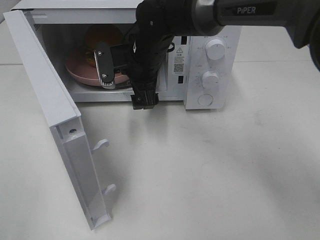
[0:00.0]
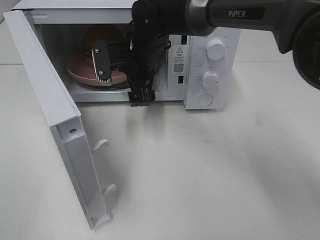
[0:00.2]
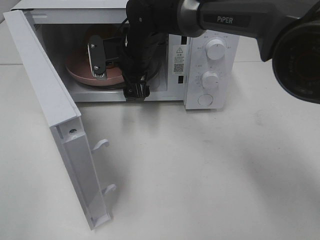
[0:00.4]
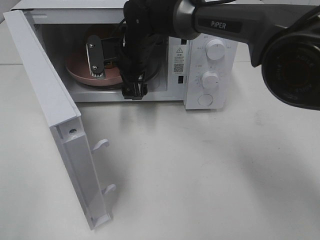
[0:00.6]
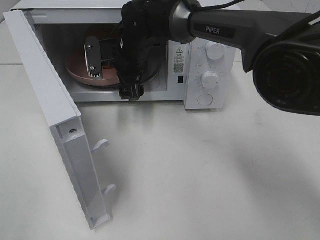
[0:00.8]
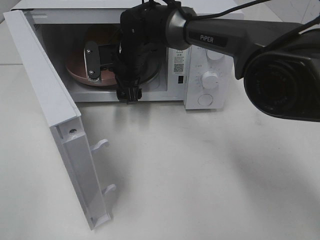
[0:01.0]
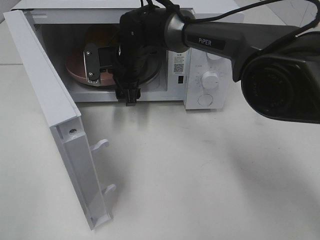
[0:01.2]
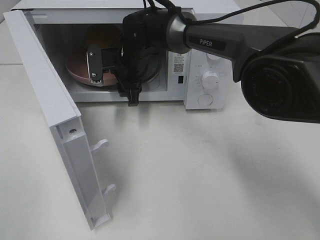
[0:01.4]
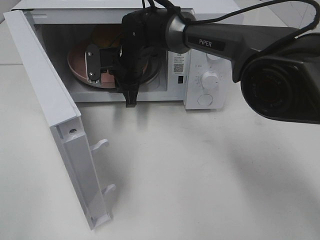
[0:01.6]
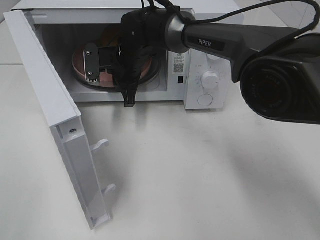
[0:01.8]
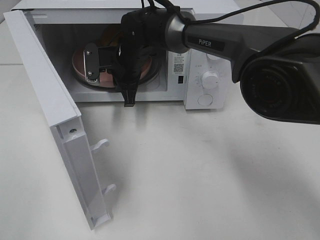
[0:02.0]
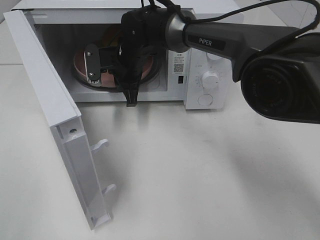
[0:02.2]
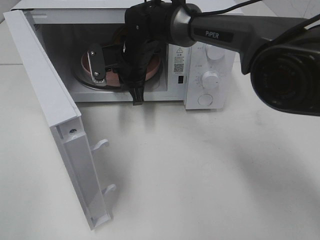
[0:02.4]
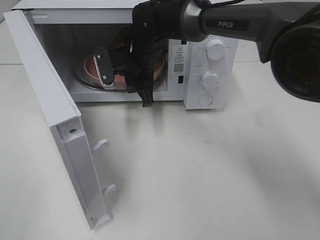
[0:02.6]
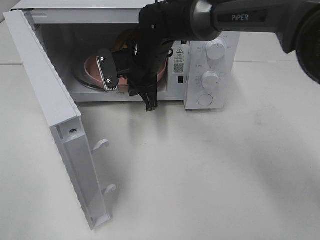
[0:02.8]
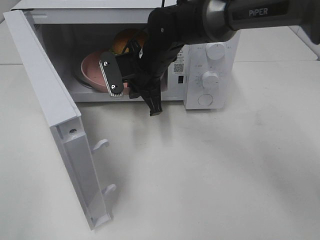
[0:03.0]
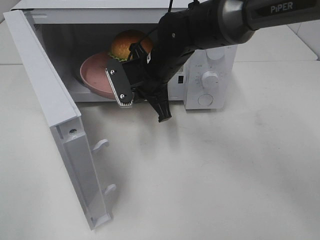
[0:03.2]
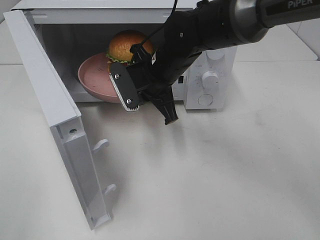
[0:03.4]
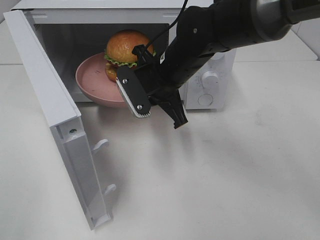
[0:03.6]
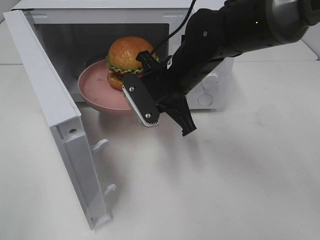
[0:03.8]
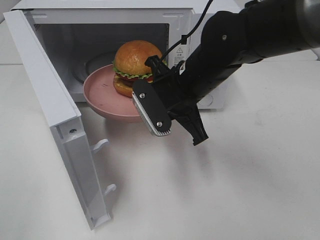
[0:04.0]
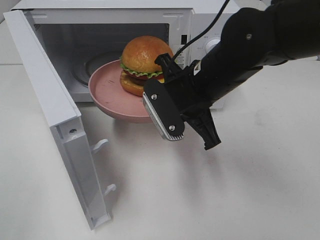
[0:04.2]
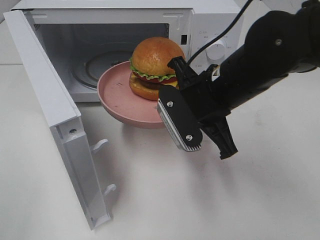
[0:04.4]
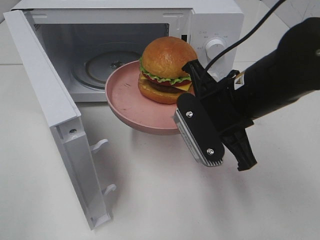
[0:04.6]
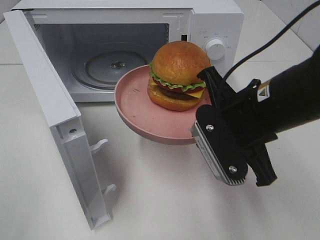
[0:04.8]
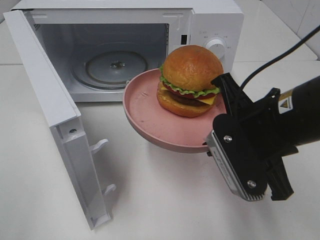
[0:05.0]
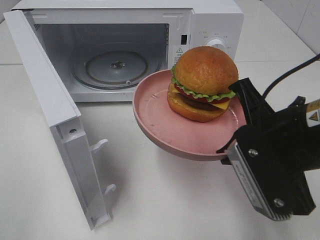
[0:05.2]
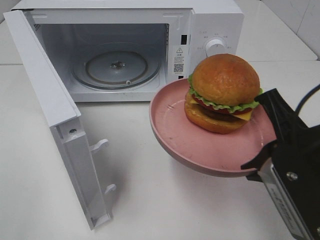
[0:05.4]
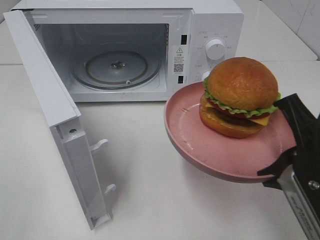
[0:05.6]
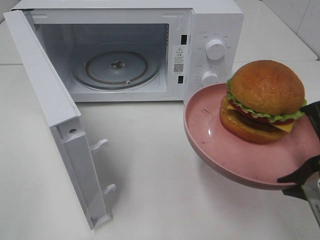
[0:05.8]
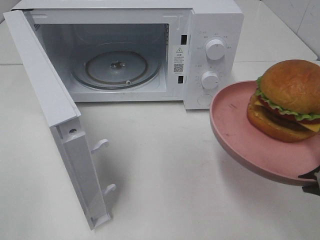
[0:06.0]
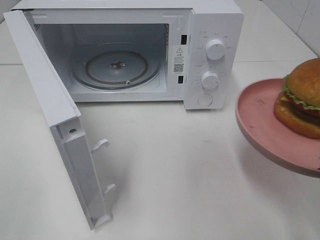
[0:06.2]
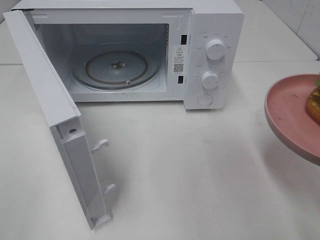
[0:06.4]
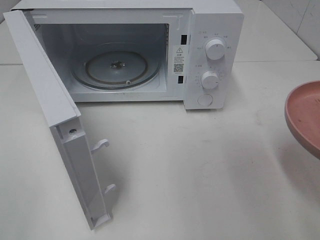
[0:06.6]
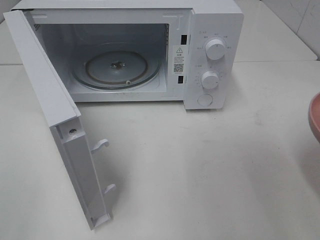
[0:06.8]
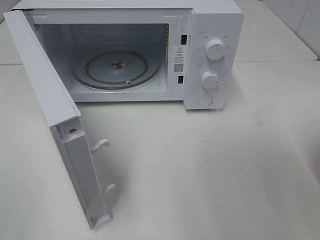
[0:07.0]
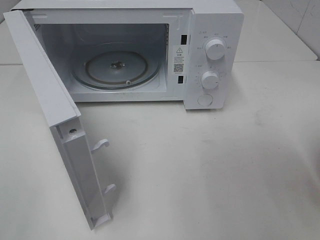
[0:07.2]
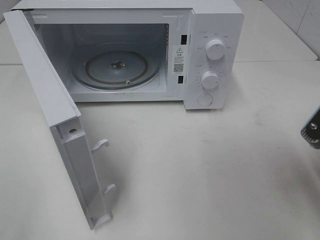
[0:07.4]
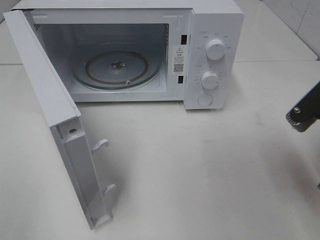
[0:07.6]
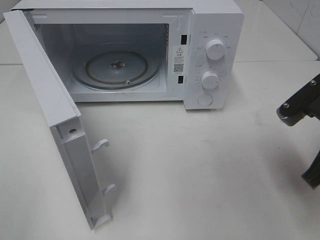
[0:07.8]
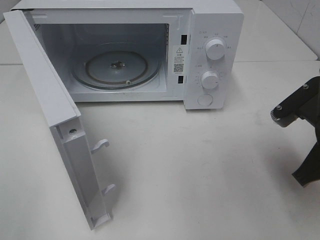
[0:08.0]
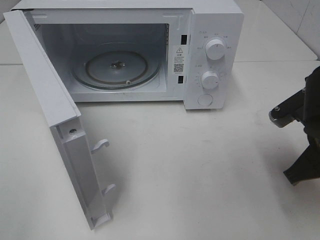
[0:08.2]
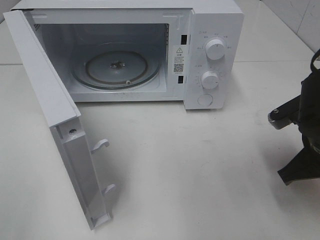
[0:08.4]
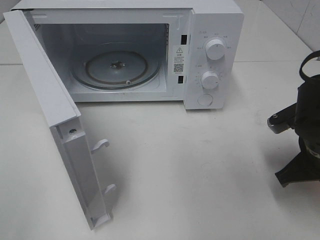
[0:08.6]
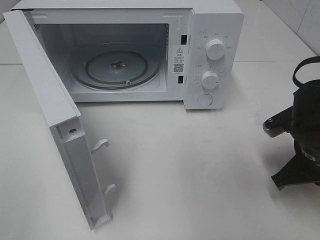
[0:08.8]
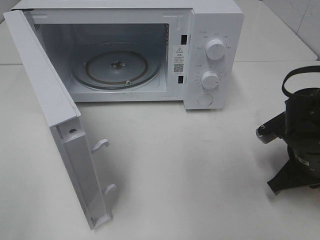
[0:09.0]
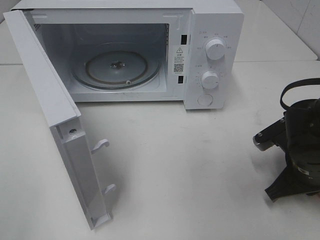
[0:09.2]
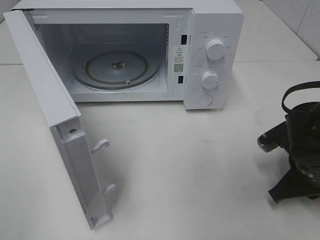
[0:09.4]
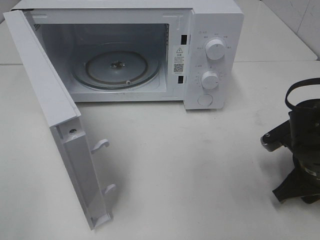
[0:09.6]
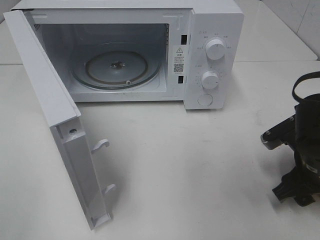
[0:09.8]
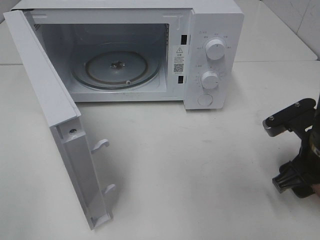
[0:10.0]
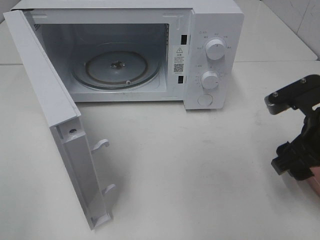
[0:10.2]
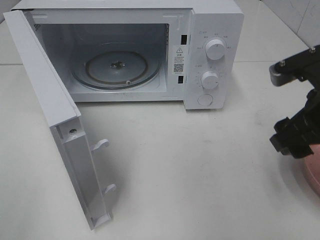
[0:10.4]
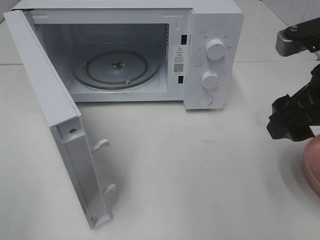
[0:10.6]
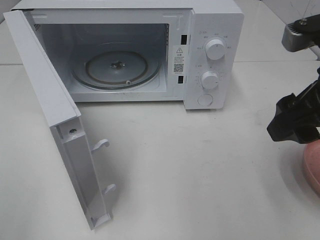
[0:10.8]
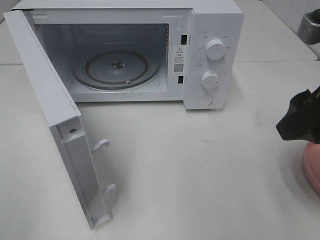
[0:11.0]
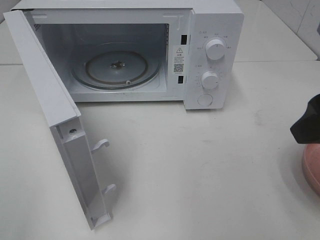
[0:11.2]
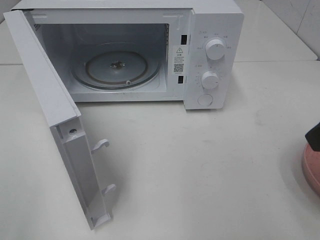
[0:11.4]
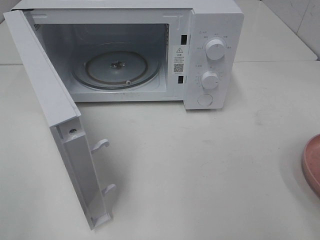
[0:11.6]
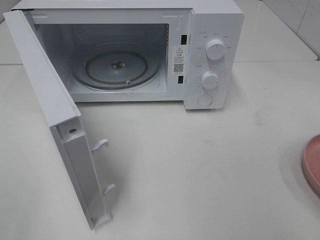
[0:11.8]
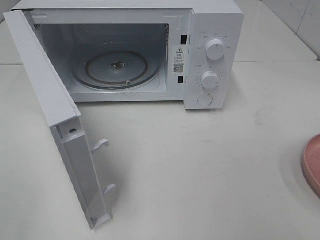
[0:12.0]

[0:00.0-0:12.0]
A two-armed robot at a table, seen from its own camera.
Task of the whole recording: Heat the burger.
Step, 0:00.0 to 0:02.2: Right hand: grab the plate with the hamburger.
Step, 0:02.4 to 0:09.6: Right hand: place the plate on the table.
0:00.0 to 0:01.6: The right gripper moves some 5 cm, and closes.
0:01.6 to 0:03.0: The right gripper shifts approximately 5 cm backward.
0:03.0 to 0:04.4: The right gripper travels backward and to the right by some 15 cm.
0:04.4 to 0:06.0: The right gripper goes some 20 cm backward and to the right.
0:06.0 to 0:07.6: The right gripper goes some 5 cm forward.
0:07.6 to 0:09.0: The right gripper shifts roughly 10 cm downward and forward.
0:09.0 to 0:10.4: The right gripper goes roughly 15 cm upward, and opens up.
0:10.4 to 0:12.0: The right gripper heads backward, to the right and upward, covering about 20 cm.

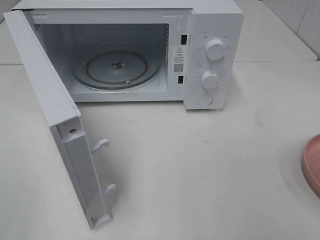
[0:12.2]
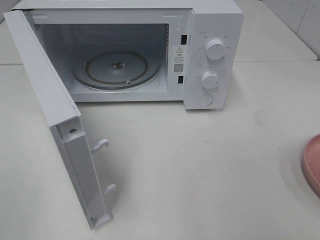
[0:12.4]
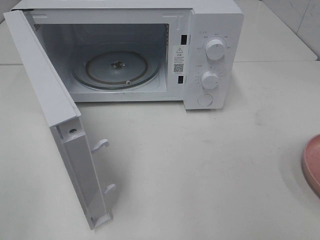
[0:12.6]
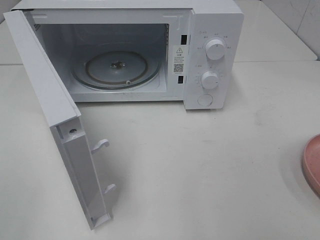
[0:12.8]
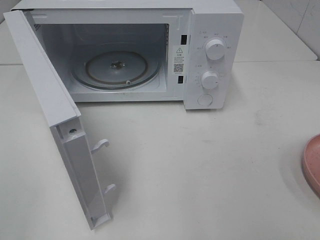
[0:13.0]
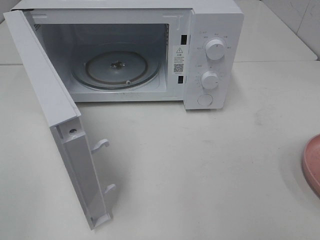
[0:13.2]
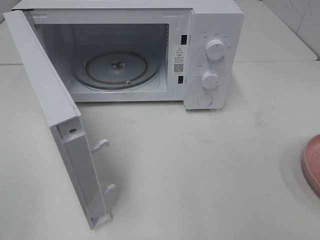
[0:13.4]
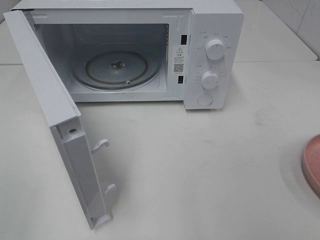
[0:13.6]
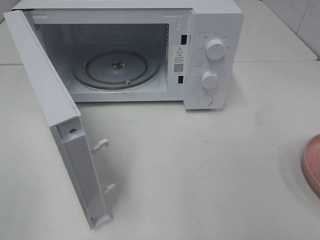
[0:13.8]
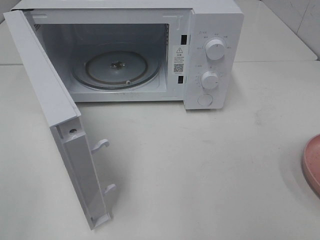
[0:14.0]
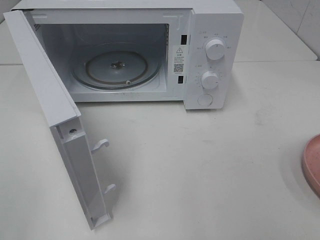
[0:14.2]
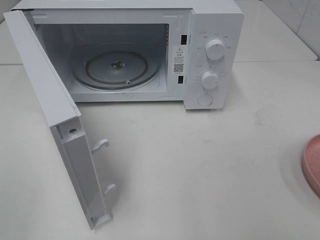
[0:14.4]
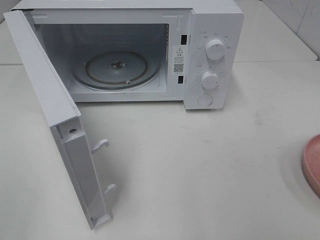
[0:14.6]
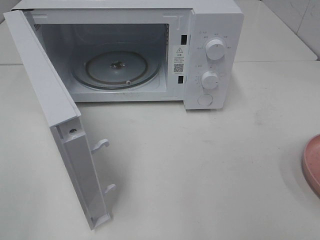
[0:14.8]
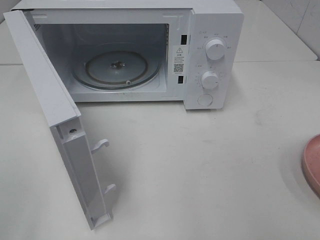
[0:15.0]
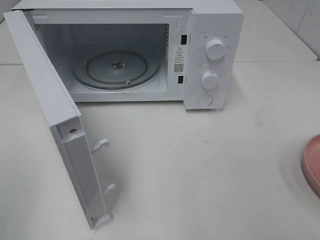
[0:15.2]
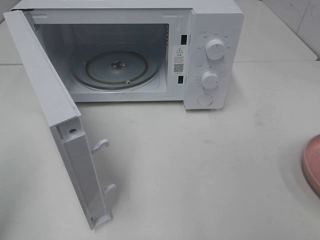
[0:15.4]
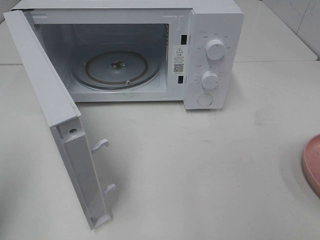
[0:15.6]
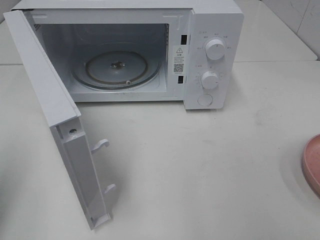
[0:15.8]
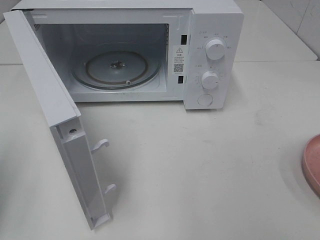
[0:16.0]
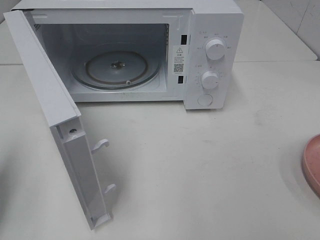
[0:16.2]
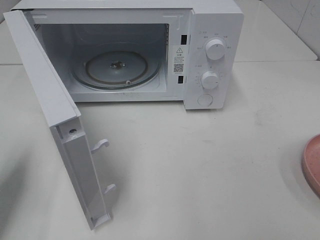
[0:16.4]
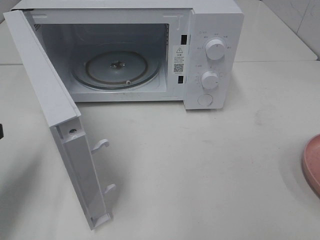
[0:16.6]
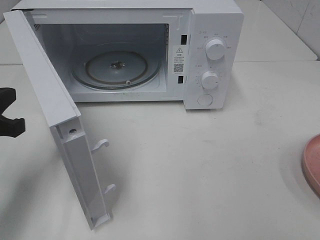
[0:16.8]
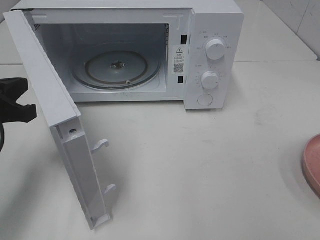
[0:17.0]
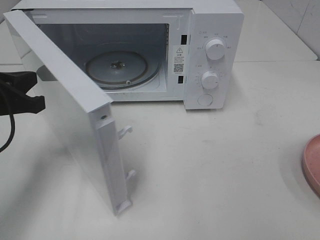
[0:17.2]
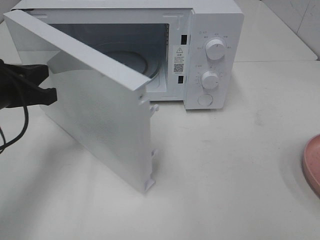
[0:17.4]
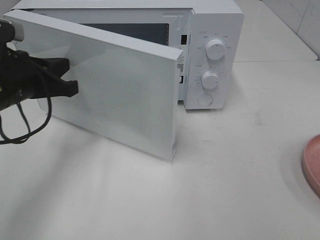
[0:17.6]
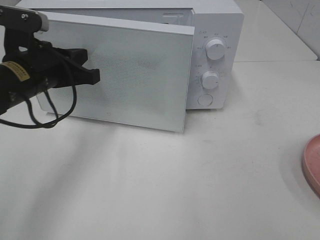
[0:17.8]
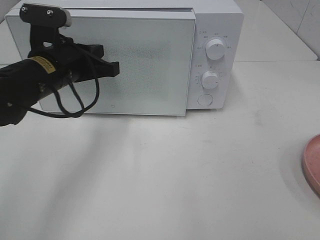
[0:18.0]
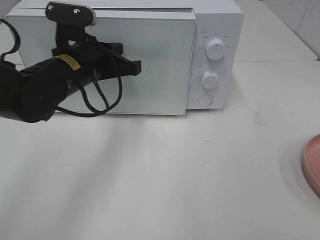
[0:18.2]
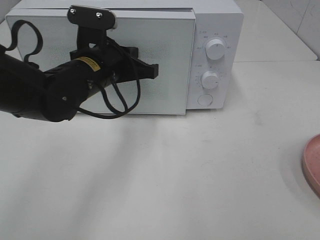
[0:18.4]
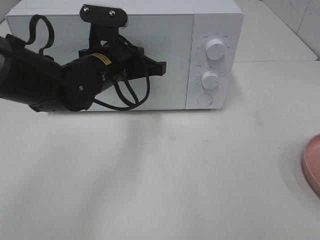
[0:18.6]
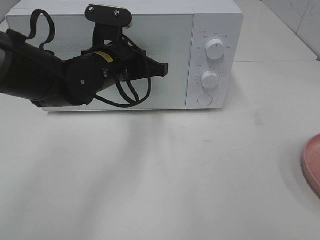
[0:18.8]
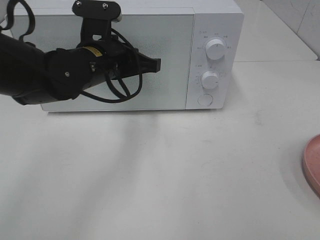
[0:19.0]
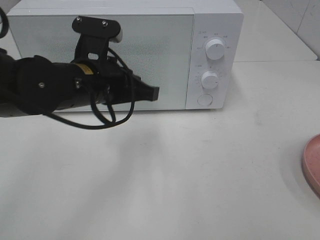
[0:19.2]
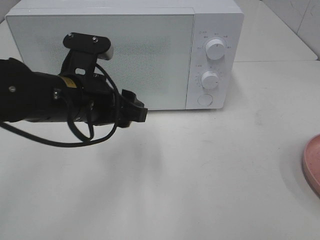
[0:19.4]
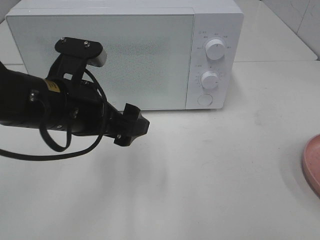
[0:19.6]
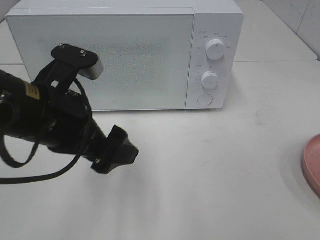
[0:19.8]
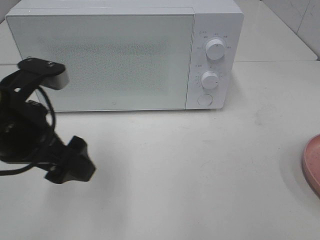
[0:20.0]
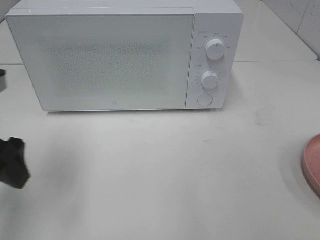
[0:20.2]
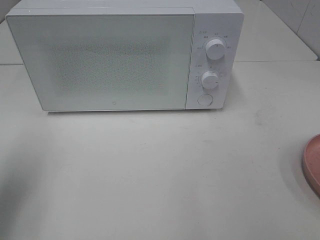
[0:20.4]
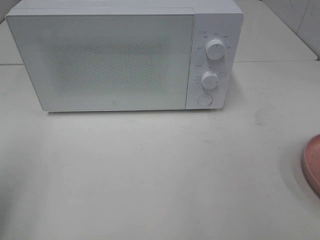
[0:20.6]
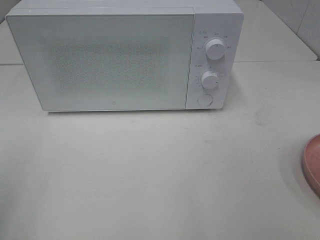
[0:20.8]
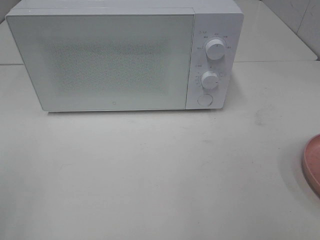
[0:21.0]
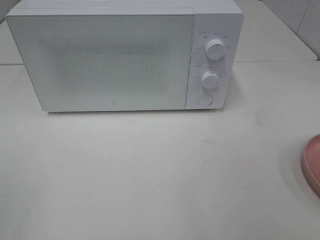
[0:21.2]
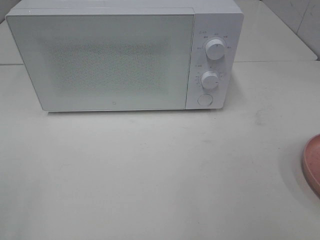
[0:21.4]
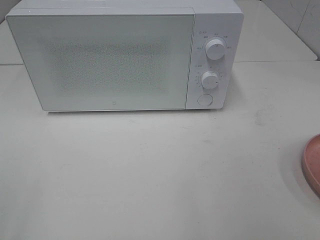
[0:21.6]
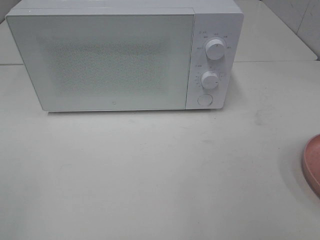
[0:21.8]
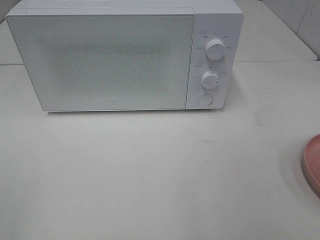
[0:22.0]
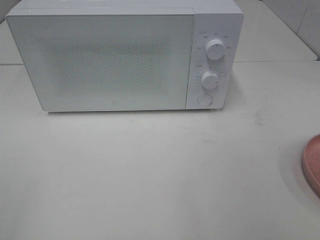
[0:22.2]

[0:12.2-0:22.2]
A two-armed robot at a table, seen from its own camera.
Task of the whole recording: Heat the burger.
Step, 0:12.2 to 0:19.4: Left hand: close the microwave door.
0:15.0 to 0:16.4: The left gripper heads forward and downward, covering some 20 cm, and closes up.
0:16.4 to 0:18.0: The left gripper shifts some 20 cm to the right and forward.
0:18.0 to 0:19.4: The left gripper goes approximately 5 cm backward, and opens its fingers.
0:19.4 to 0:20.8: The left gripper heads to the left, backward and upward, covering roughly 30 cm.
